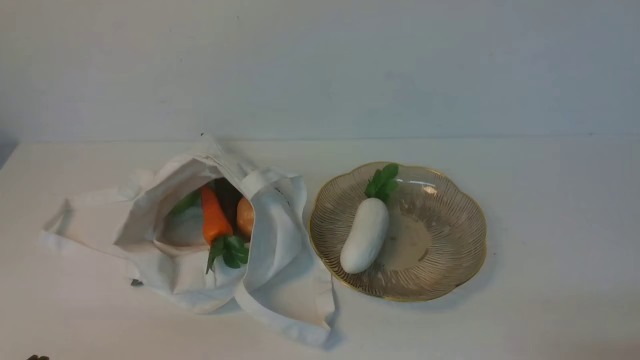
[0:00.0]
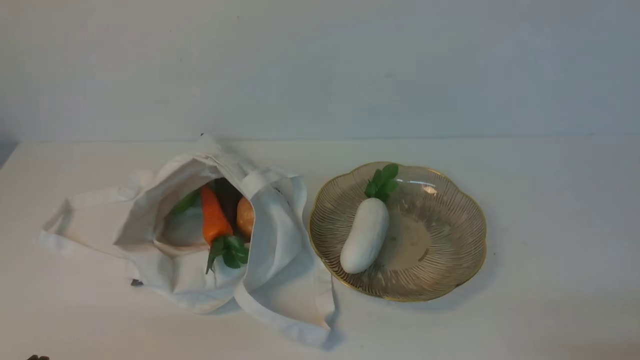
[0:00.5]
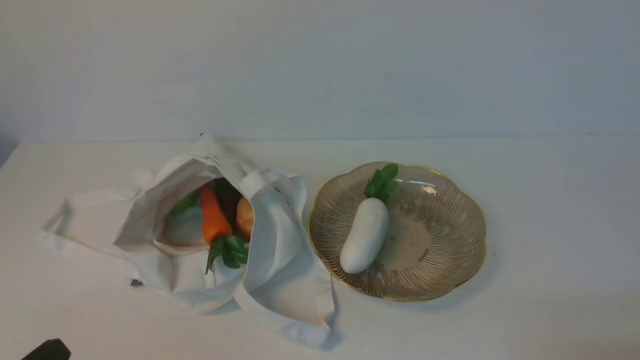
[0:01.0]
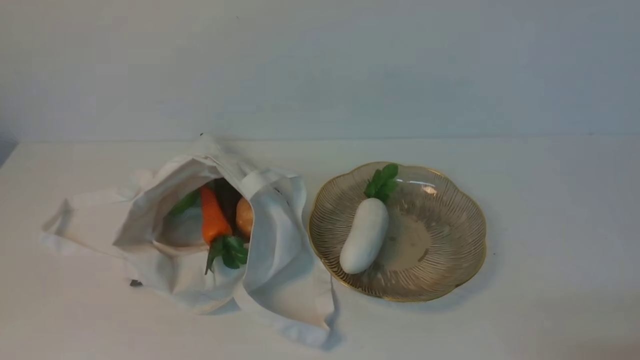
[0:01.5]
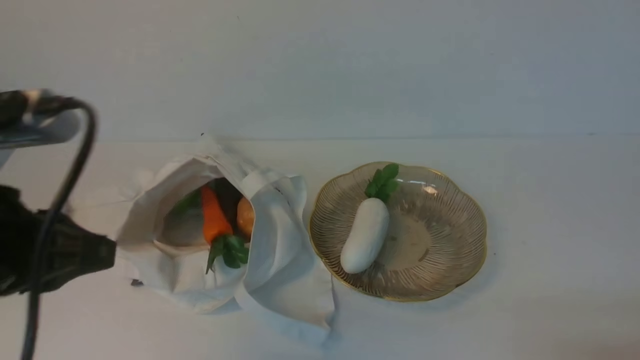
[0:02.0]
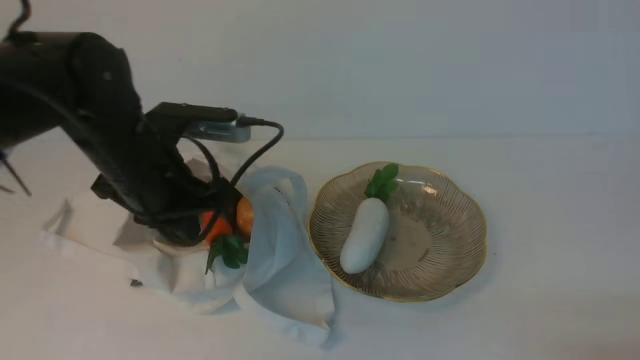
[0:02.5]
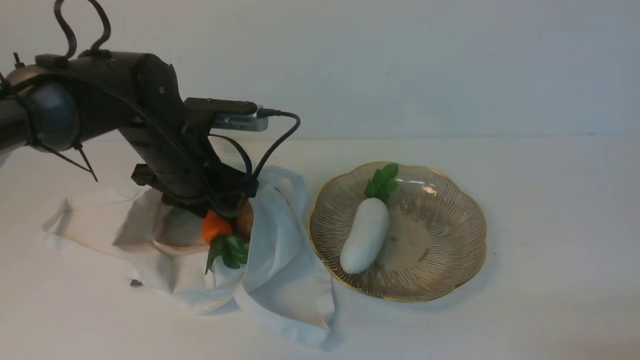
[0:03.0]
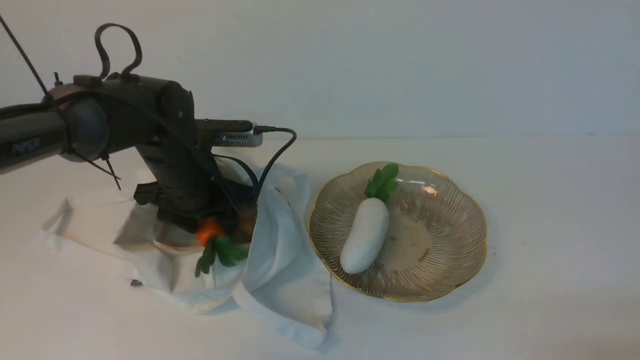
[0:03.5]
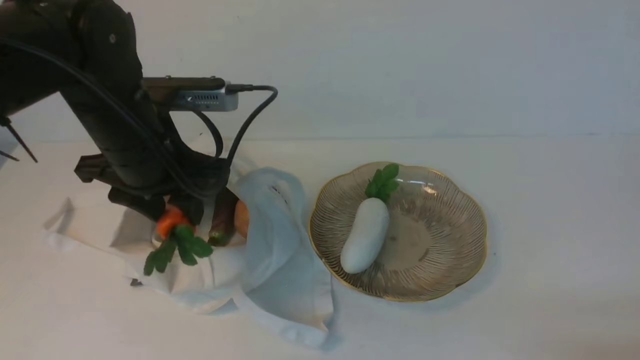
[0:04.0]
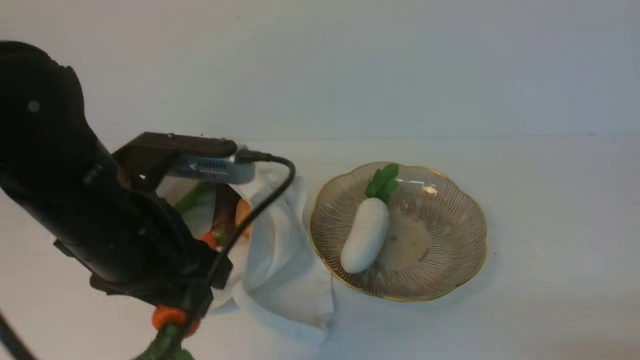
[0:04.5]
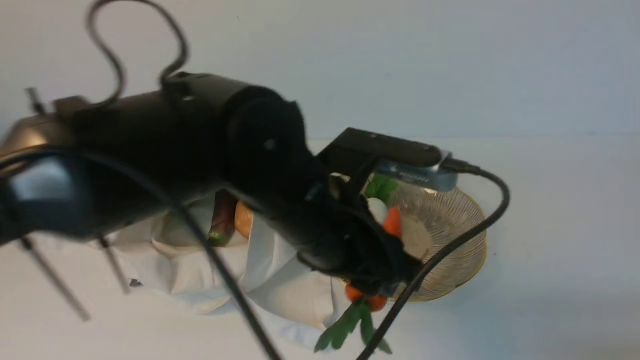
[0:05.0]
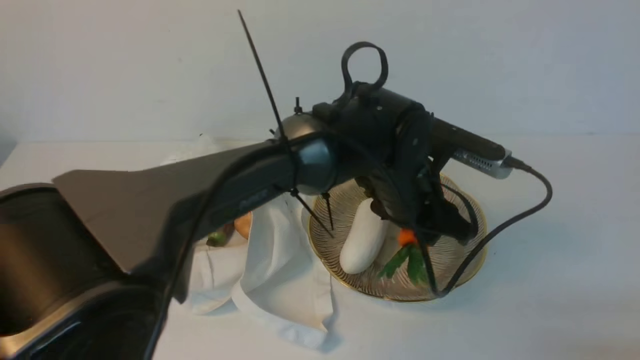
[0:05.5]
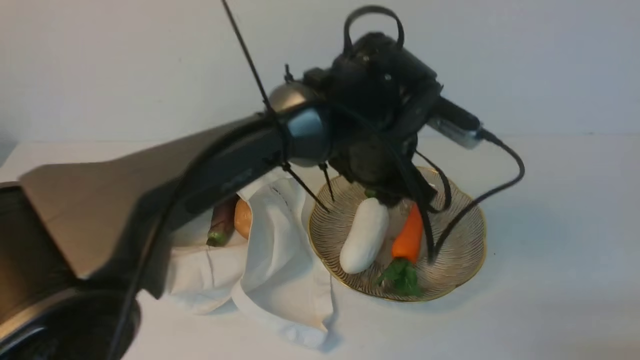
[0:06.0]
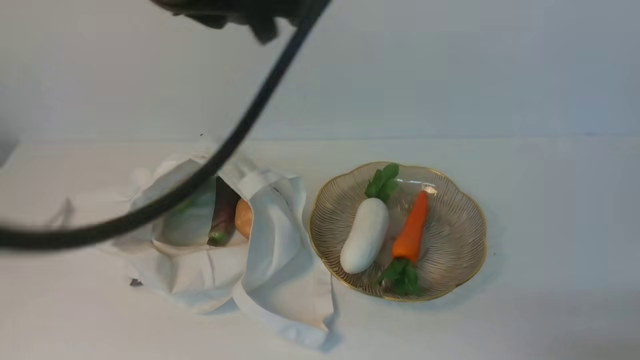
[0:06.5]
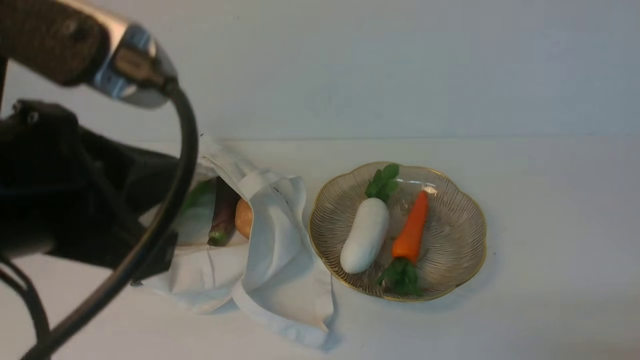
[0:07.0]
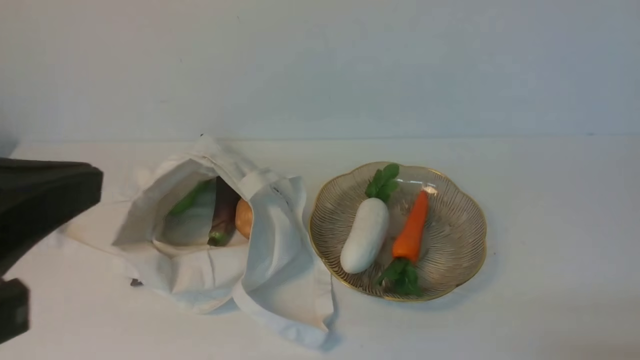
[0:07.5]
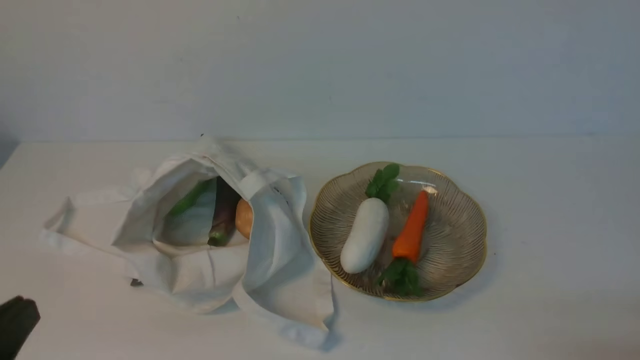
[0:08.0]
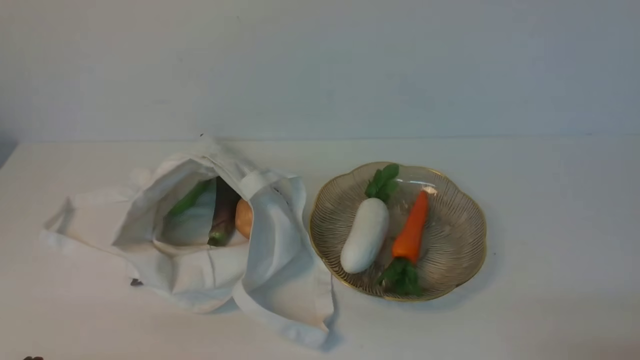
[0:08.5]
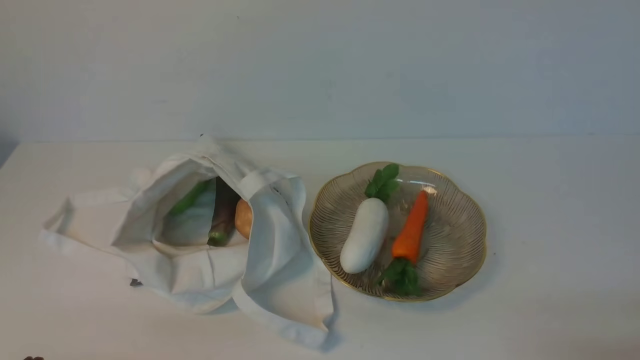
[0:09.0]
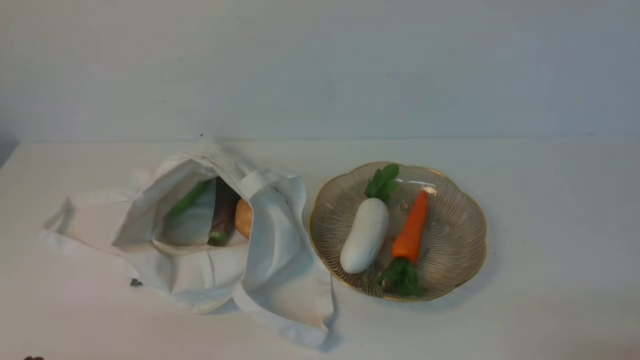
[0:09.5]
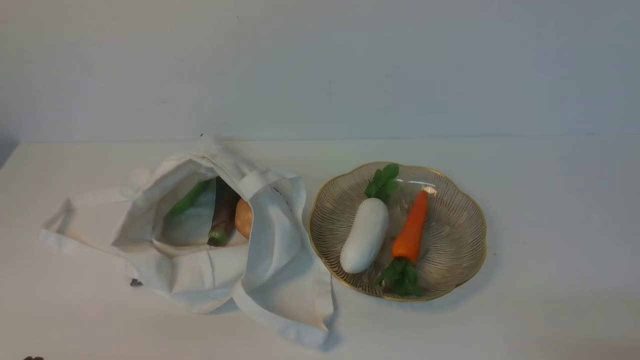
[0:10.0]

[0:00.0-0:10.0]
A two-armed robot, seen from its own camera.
Task of the whole recording: take vegetables from cloth bag on white table place on plate.
Step, 0:00.0 to 0:03.0: Grasp the carrot with left gripper.
Step, 0:04.0 to 0:05.5: Place the carrot on the plate with left gripper.
0:02.0 to 0:04.0: The left gripper heads forward, covering roughly 20 cm, and opens its fingers.
0:04.0 to 0:06.0: The left gripper is displaced to the right by some 25 cm.
0:06.0 to 0:08.0: The left gripper heads to the left and backward, covering roughly 40 cm, and closes its fingers.
0:08.0 to 0:10.0: The left gripper shifts about 15 cm downward.
